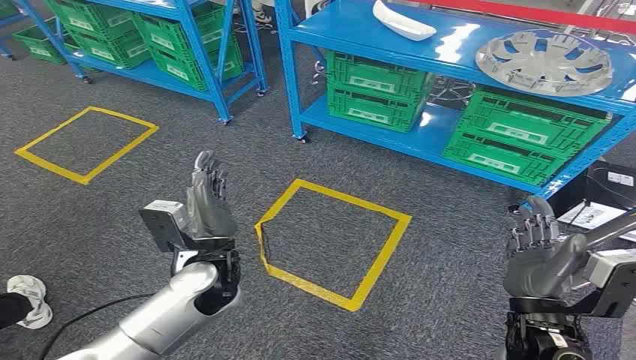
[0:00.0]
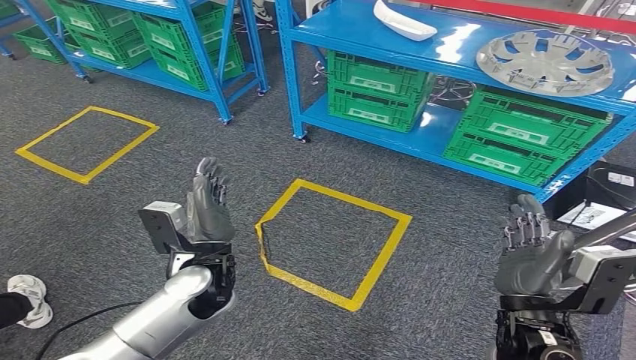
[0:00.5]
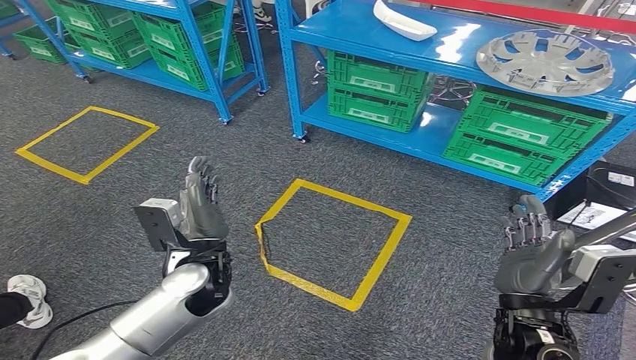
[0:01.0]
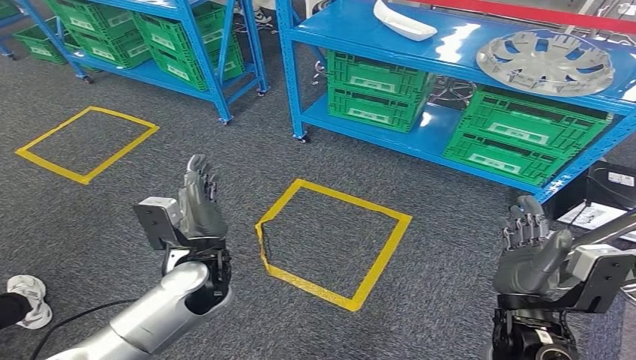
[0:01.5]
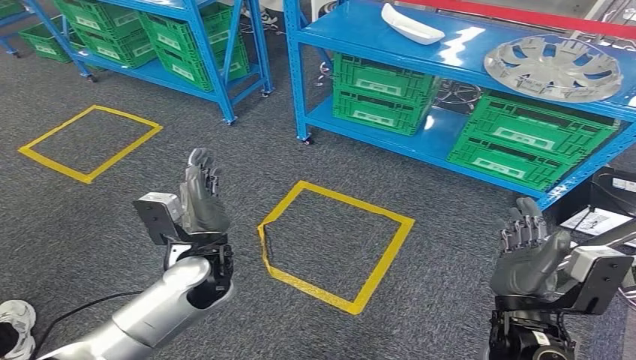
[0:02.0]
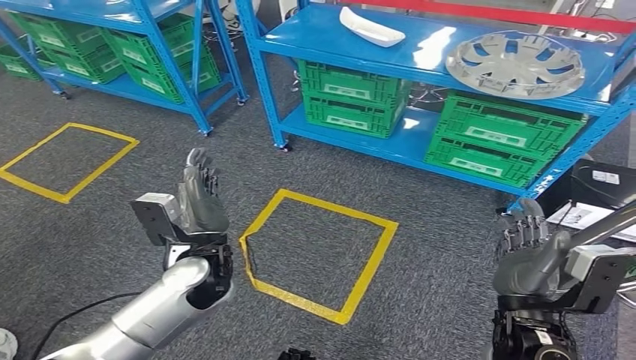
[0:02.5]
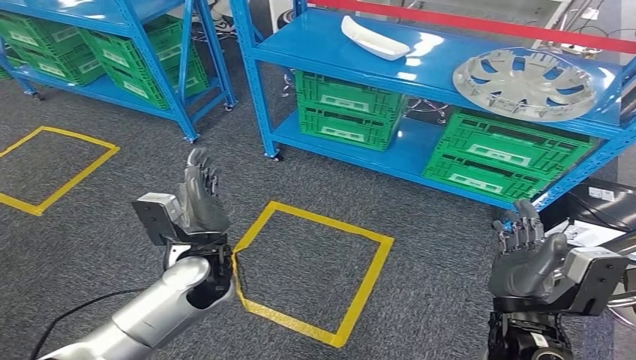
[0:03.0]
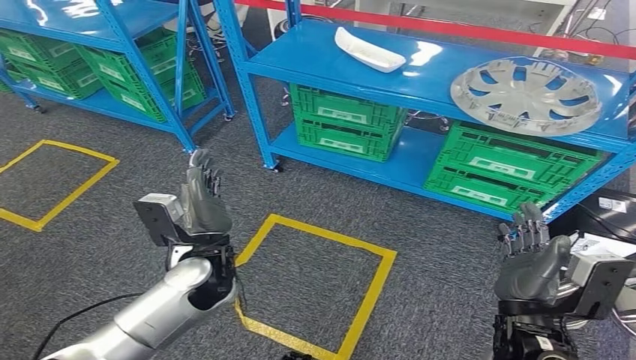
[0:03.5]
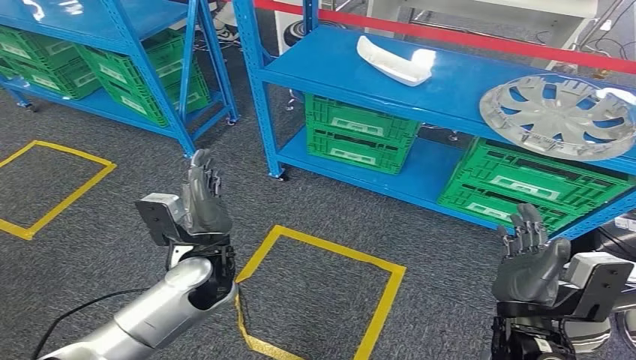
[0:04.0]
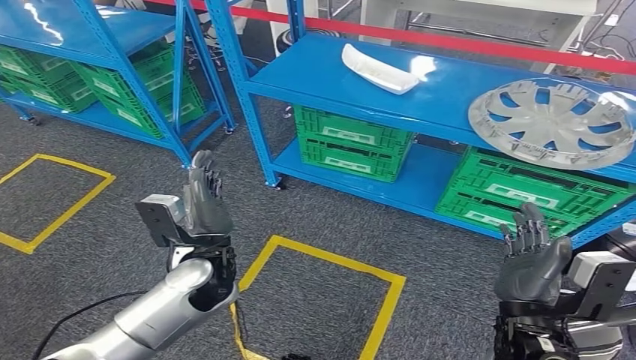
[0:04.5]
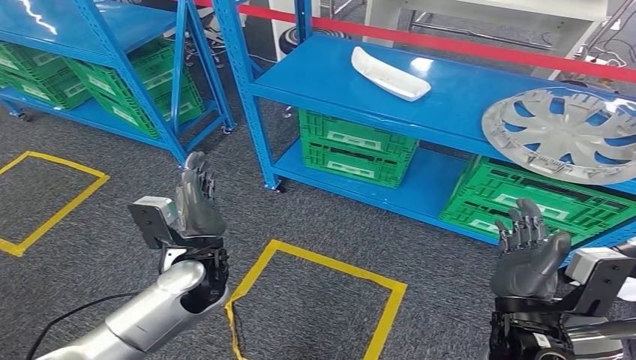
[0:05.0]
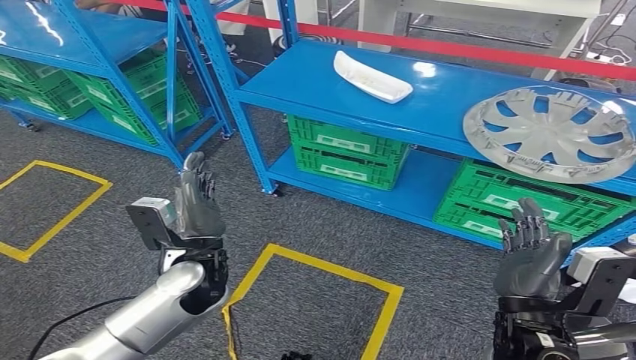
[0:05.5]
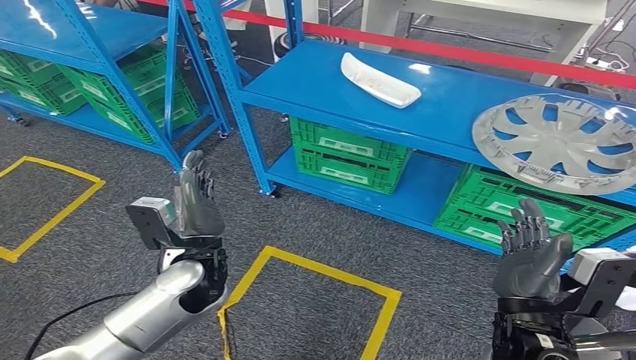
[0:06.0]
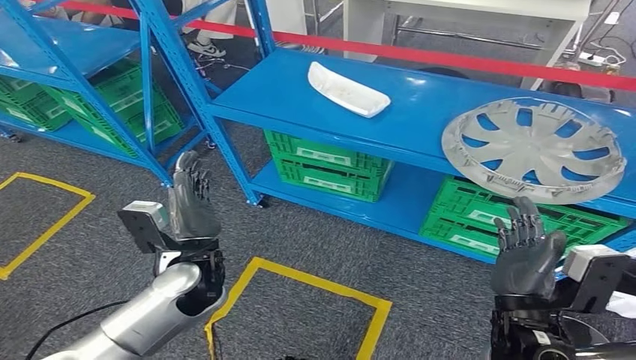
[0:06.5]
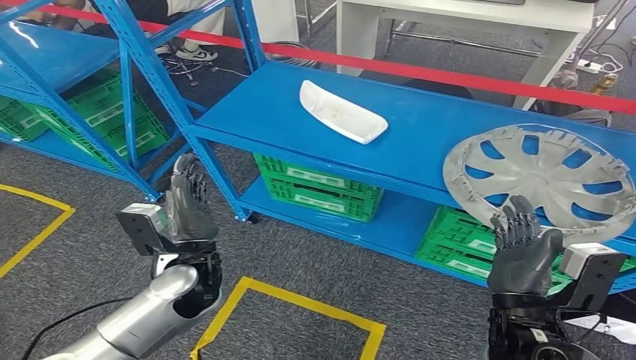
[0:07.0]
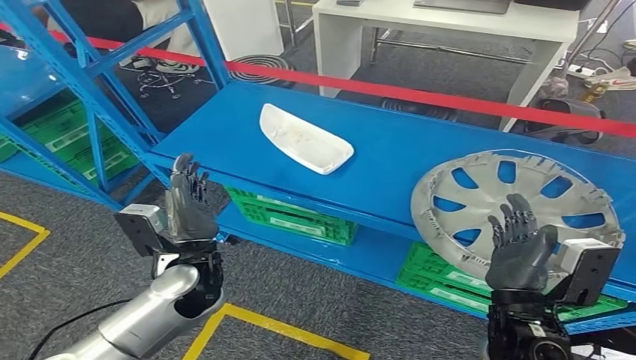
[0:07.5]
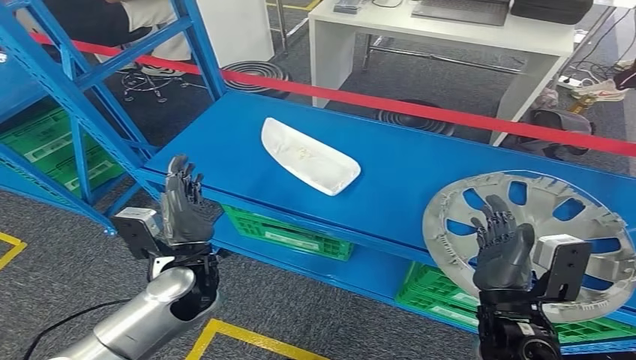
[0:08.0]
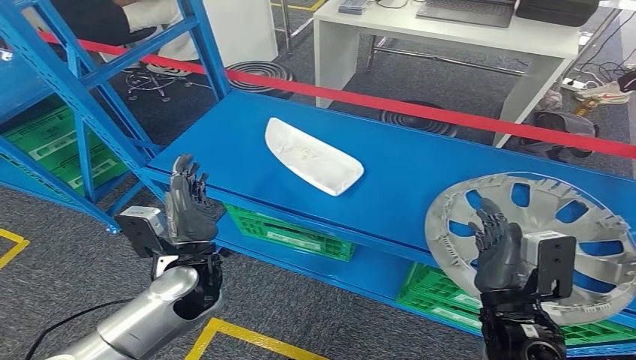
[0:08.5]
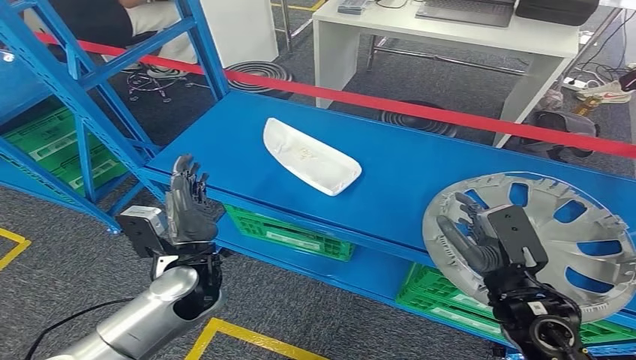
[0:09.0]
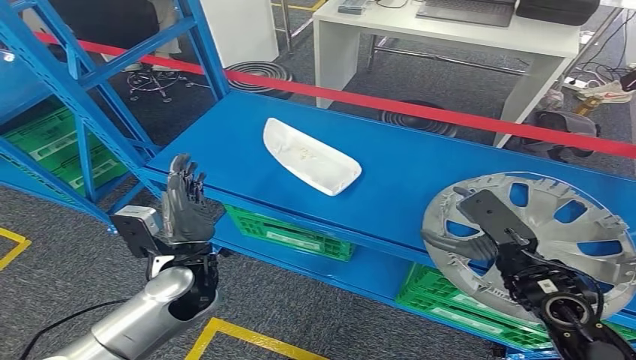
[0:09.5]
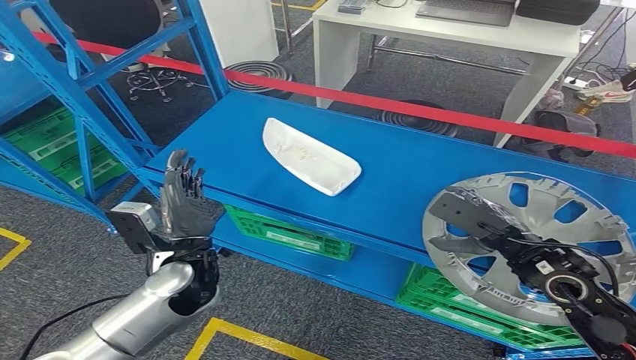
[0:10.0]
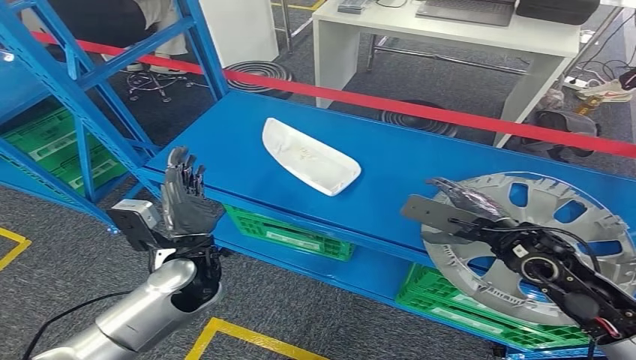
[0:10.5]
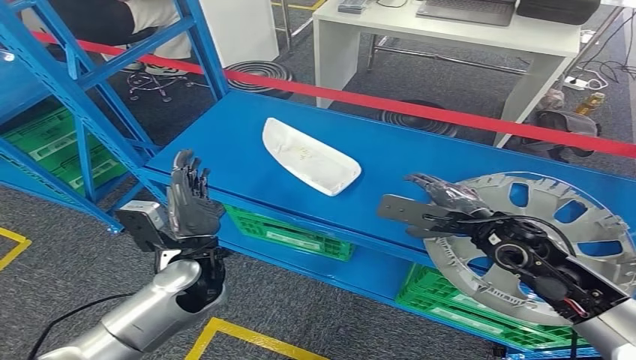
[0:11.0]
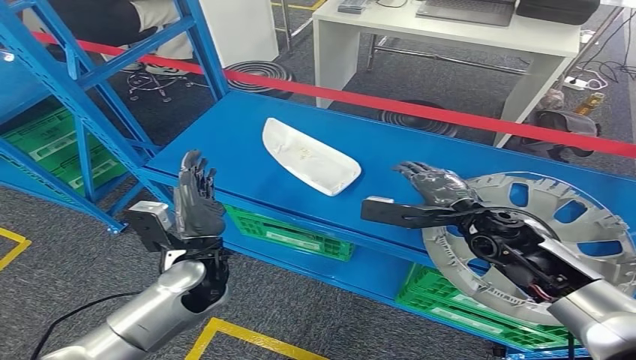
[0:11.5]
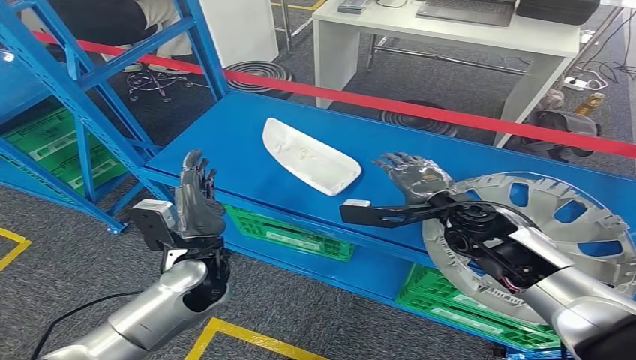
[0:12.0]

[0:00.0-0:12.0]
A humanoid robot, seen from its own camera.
0:08.0 to 0:10.0: The right hand goes about 15 cm forward and to the right.
0:10.0 to 0:12.0: The right hand travels to the left and forward by some 10 cm.

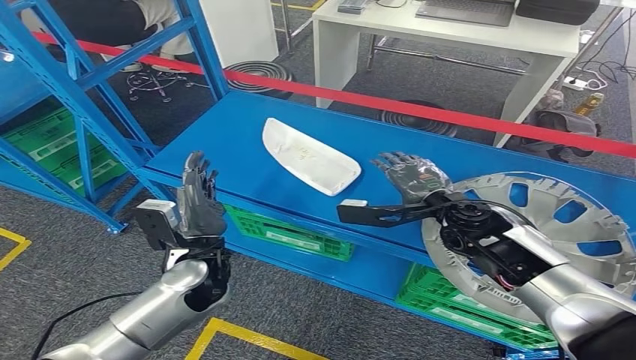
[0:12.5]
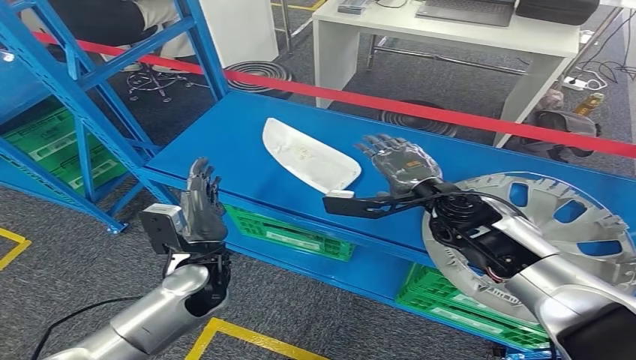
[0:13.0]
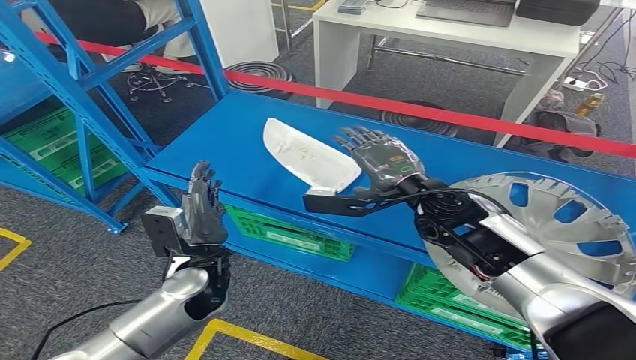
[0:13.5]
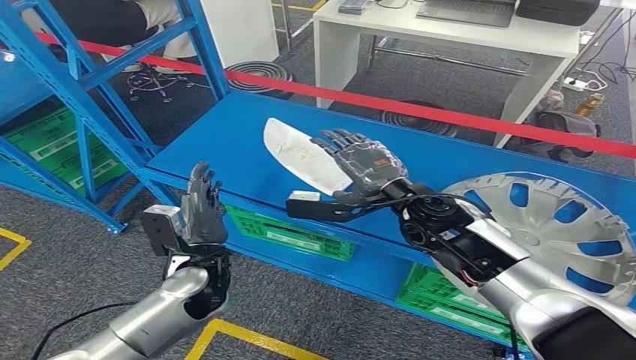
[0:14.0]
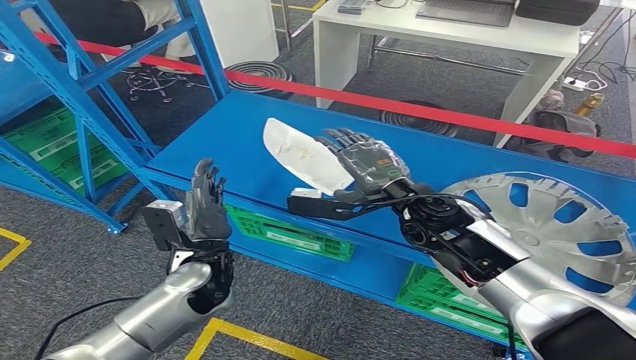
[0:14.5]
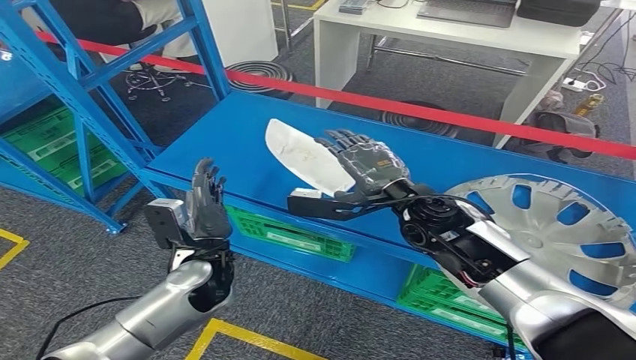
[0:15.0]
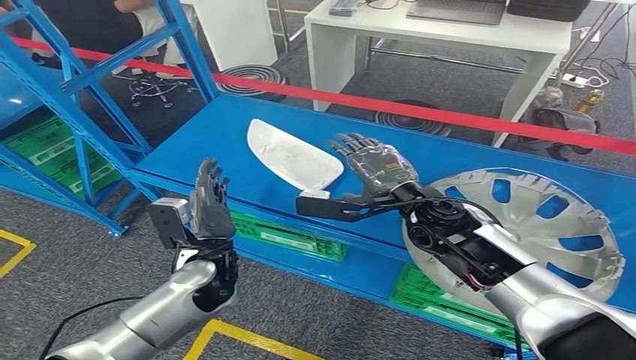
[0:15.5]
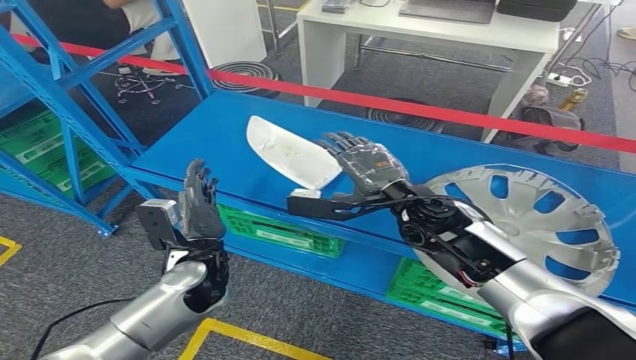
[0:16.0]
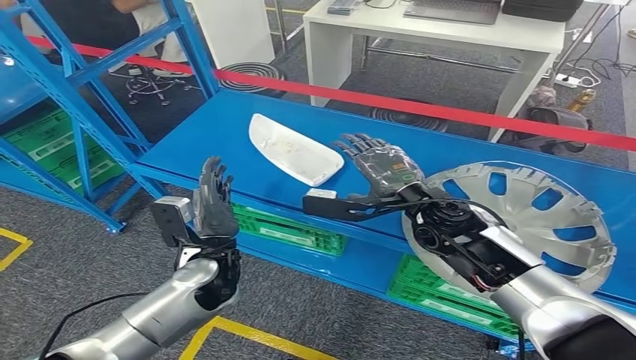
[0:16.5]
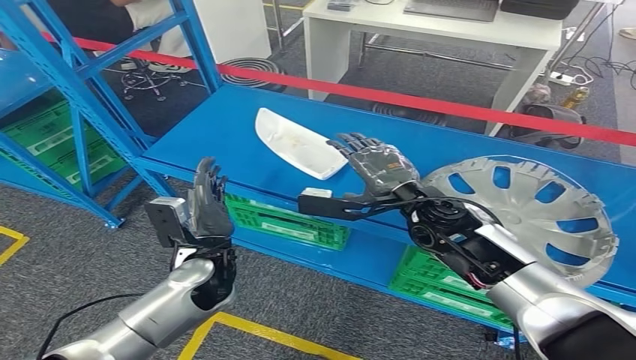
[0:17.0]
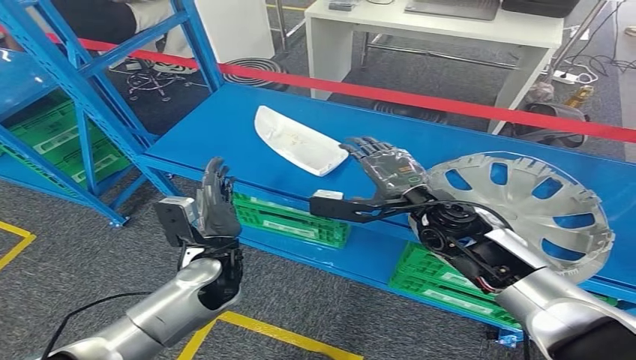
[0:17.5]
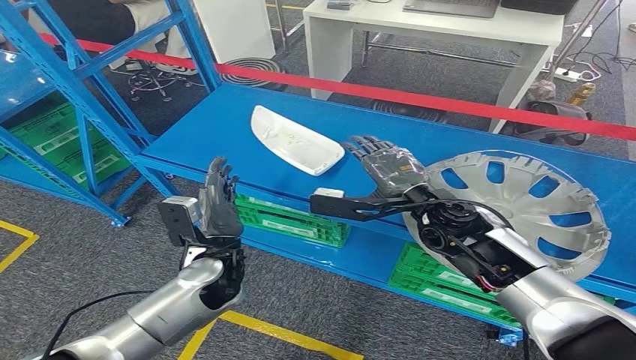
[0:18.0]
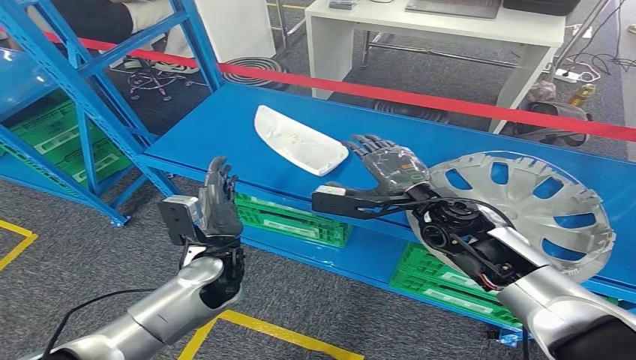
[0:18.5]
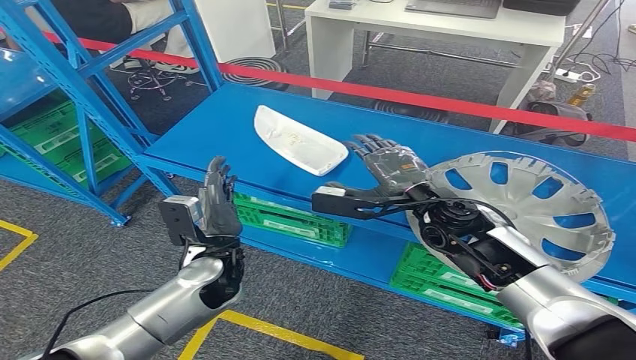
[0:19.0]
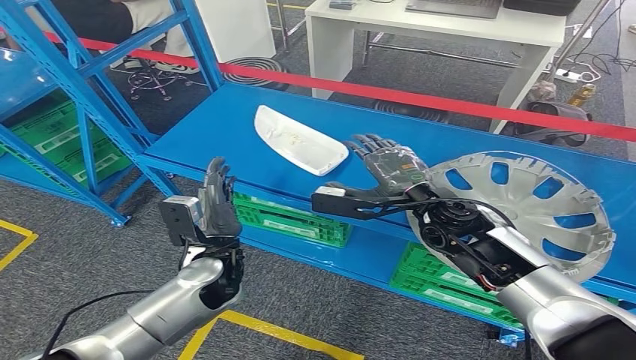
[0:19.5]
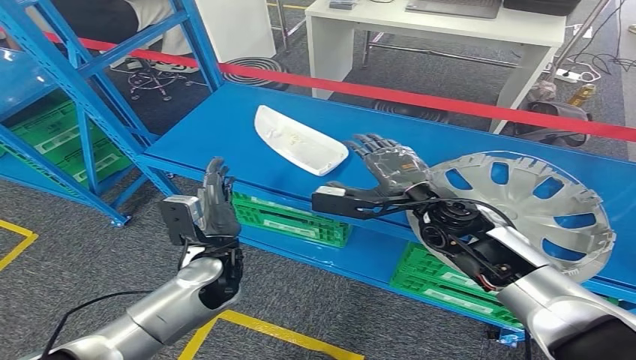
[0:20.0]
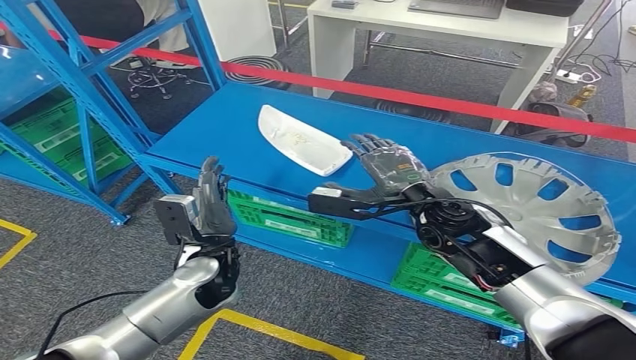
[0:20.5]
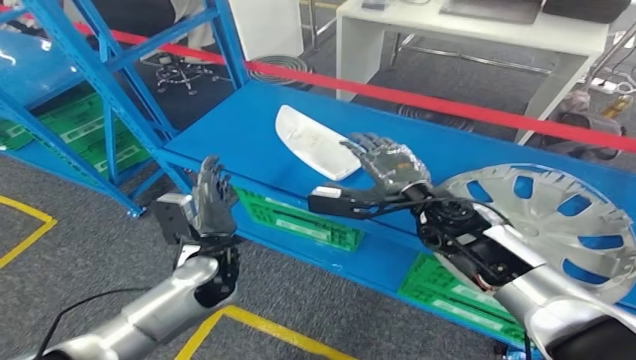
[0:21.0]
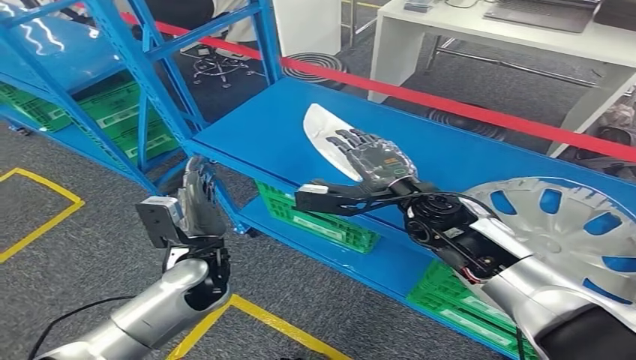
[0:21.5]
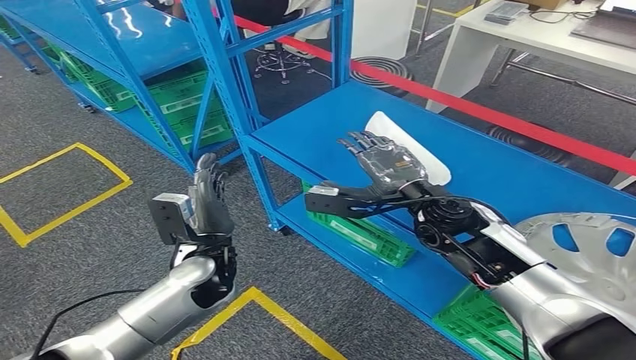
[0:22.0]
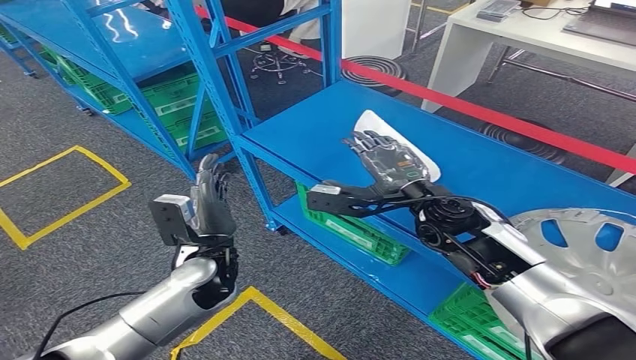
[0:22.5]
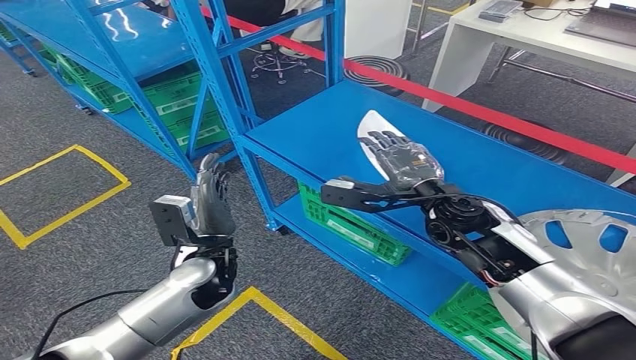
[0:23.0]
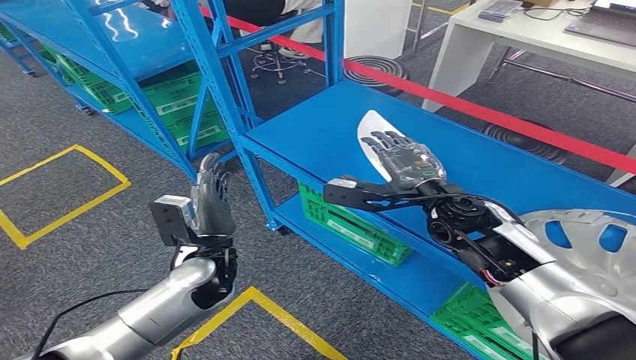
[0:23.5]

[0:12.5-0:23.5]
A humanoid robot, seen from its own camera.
0:12.5 to 0:14.5: The right hand is displaced to the left by about 5 cm.
0:18.0 to 0:20.0: Neither hand changes place.
